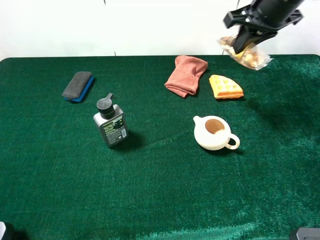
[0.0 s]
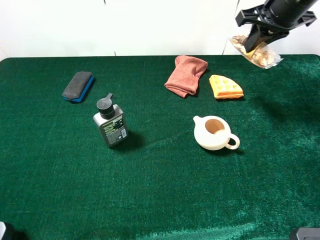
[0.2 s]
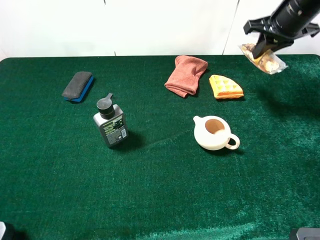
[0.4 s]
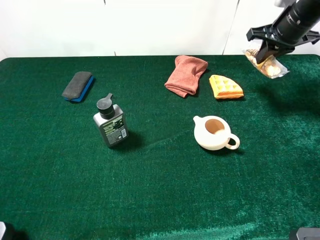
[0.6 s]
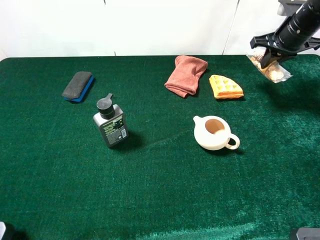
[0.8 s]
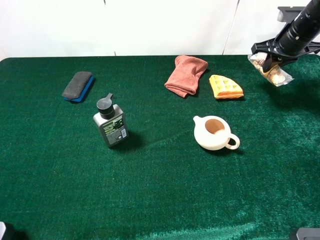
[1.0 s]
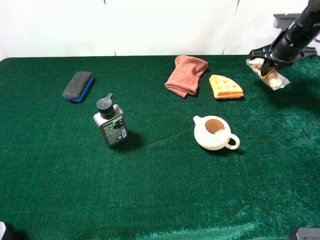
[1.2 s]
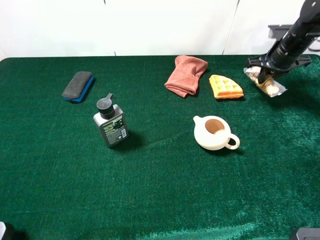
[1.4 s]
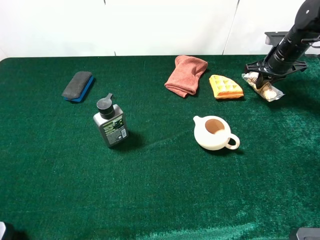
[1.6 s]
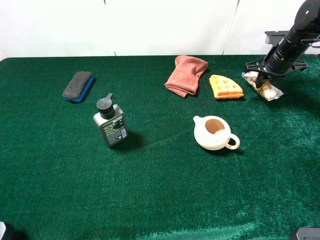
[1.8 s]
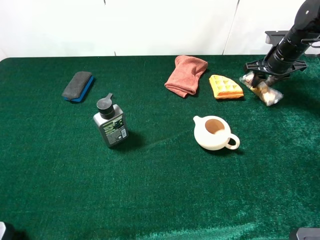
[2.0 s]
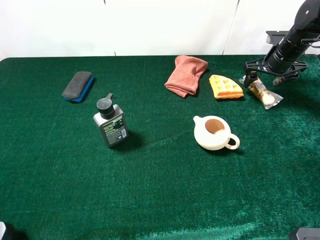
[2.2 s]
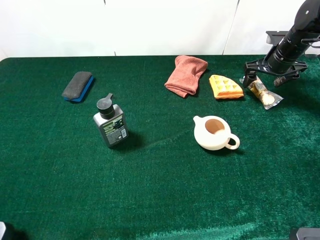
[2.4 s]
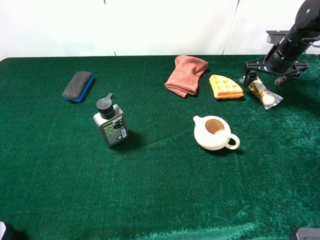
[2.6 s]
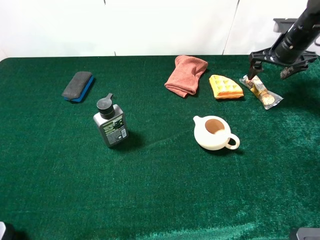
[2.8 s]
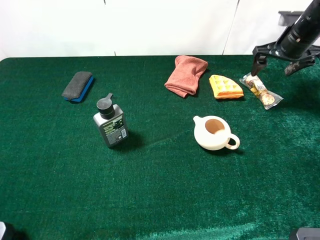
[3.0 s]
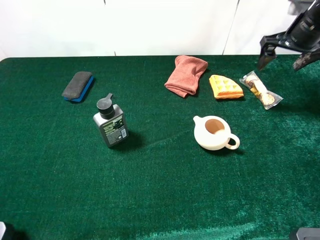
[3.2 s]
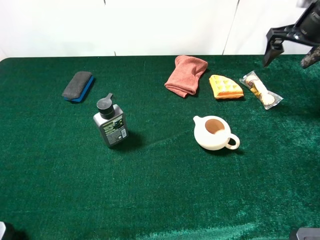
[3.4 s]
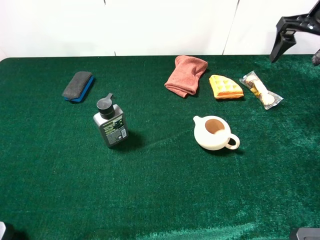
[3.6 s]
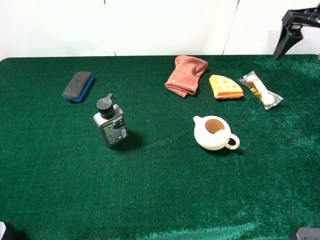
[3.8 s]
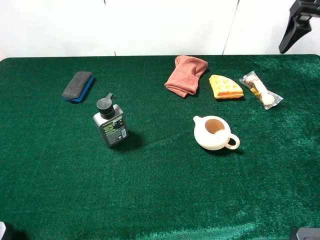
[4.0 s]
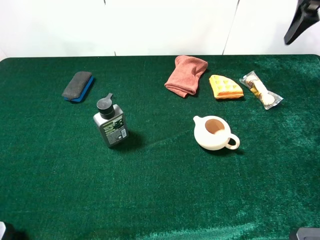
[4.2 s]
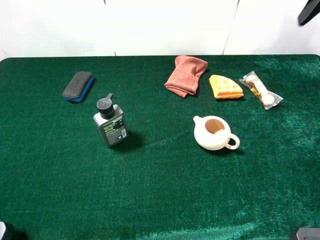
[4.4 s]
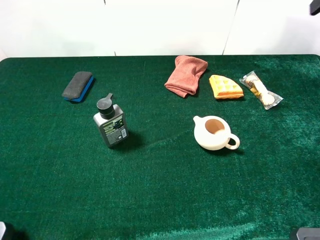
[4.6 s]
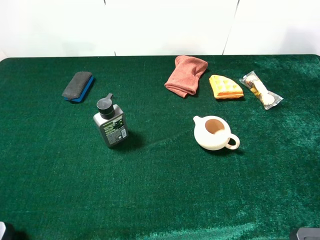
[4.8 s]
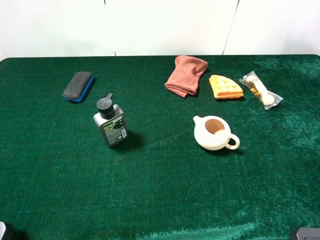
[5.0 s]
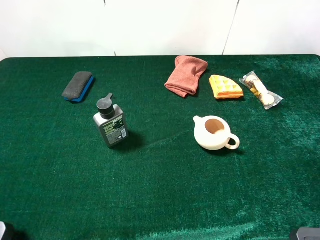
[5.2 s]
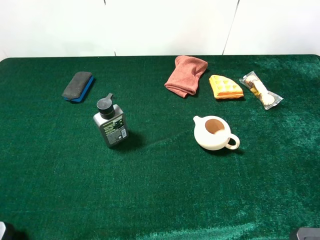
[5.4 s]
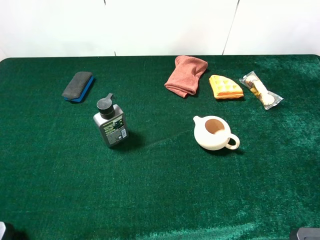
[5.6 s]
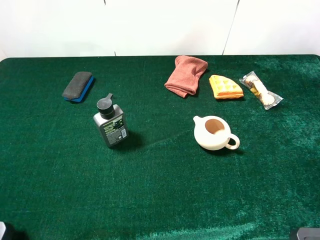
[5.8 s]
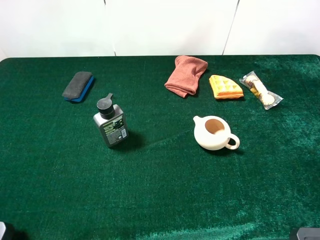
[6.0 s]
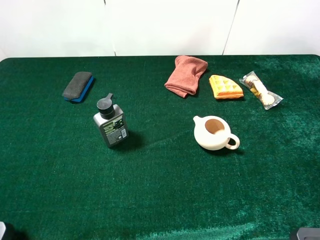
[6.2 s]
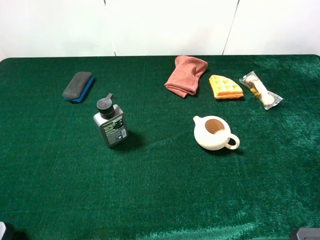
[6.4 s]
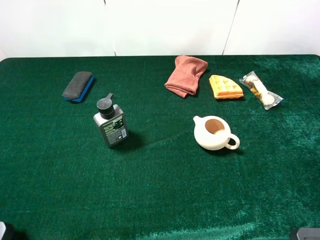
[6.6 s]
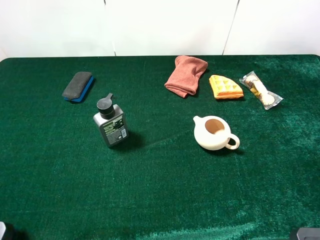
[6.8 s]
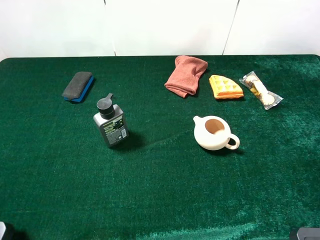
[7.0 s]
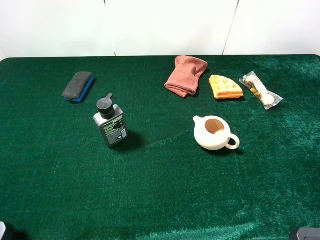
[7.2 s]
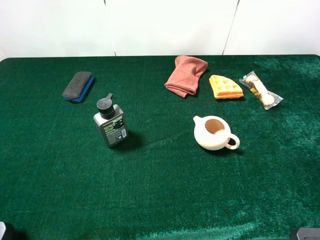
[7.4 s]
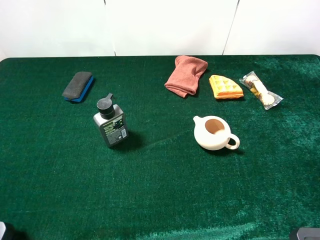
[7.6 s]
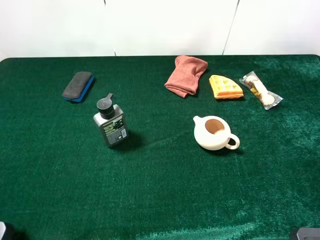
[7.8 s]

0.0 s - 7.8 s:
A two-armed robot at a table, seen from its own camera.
Task of the whole recording: the gripper move the object.
Step, 0.0 s - 2.8 s: Place the chocolate on the table with the right gripper.
0.0 s - 1.6 s: The right gripper shifts roughly 20 cm downward, to the right and forward.
1.6 s - 3.2 s: The right gripper goes some 10 cm upward, and opens.
3.2 s - 4.6 s: The right gripper is displaced upward and backward by roughly 20 cm.
6.2 s - 7.8 s: Both grippers stay put.
